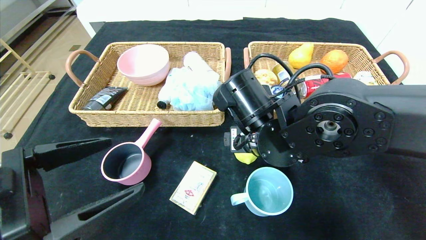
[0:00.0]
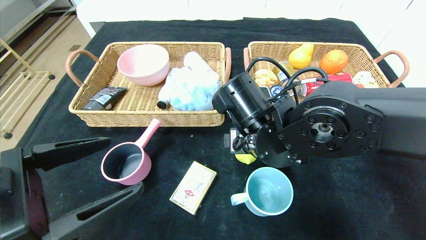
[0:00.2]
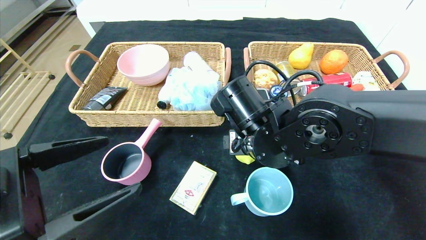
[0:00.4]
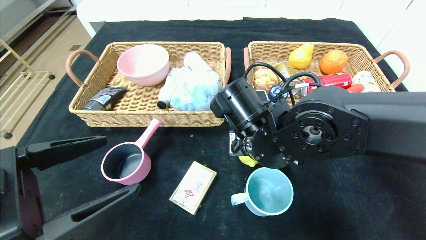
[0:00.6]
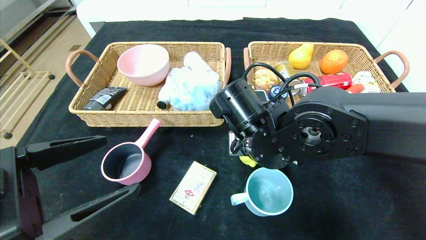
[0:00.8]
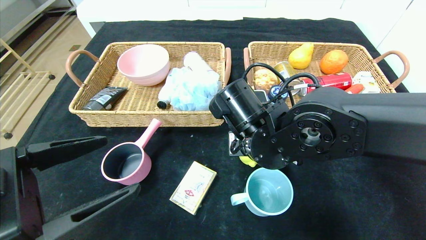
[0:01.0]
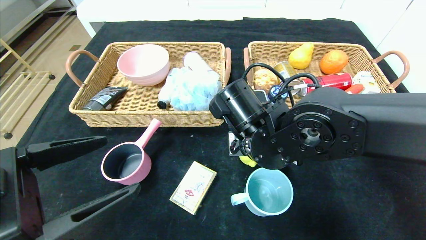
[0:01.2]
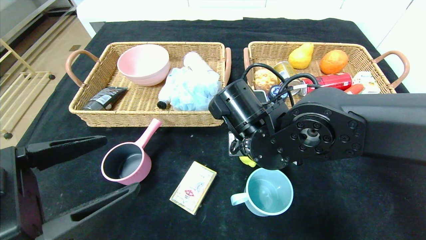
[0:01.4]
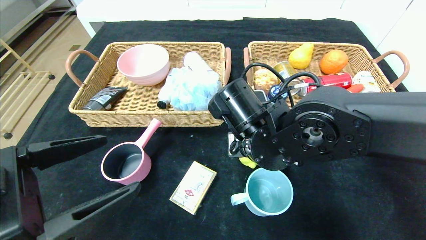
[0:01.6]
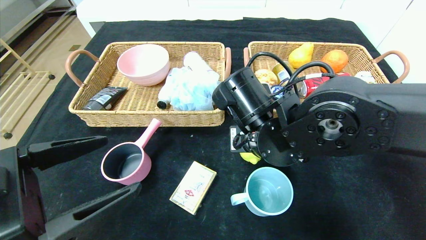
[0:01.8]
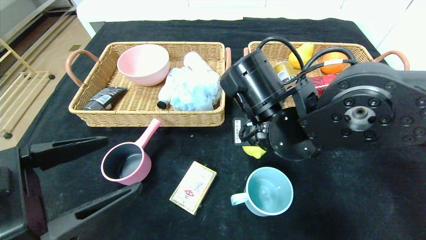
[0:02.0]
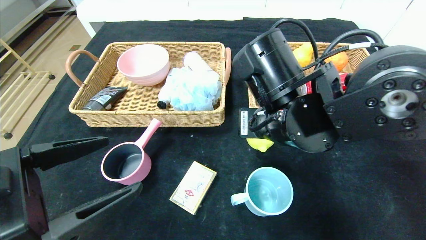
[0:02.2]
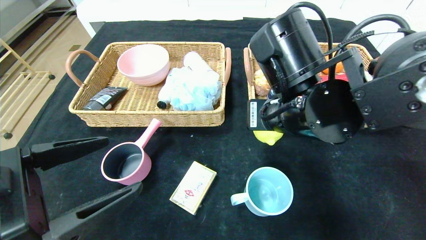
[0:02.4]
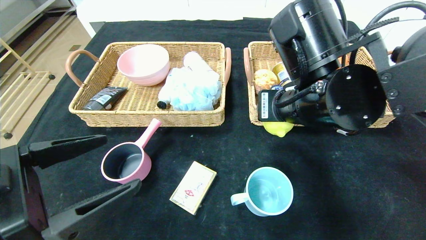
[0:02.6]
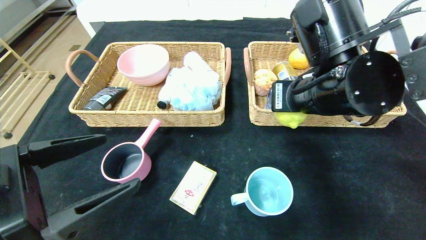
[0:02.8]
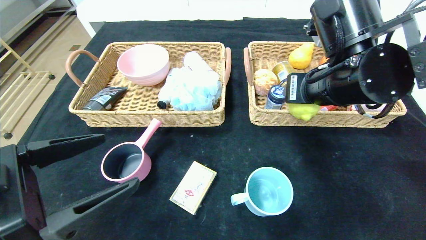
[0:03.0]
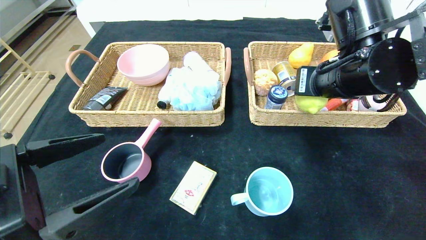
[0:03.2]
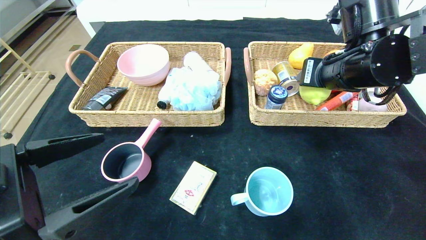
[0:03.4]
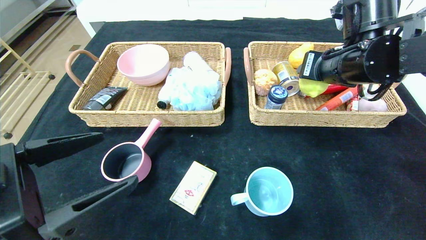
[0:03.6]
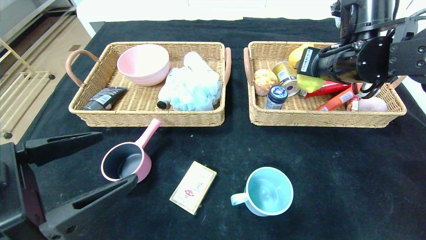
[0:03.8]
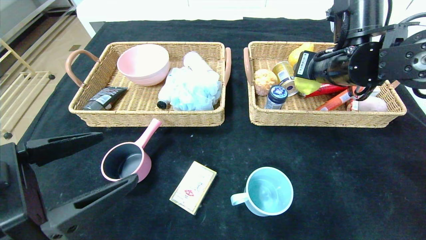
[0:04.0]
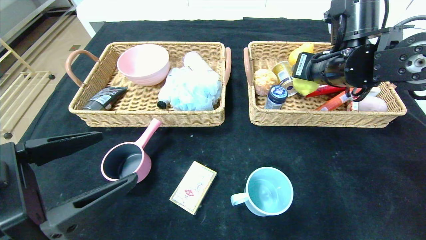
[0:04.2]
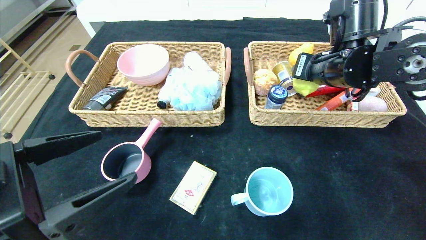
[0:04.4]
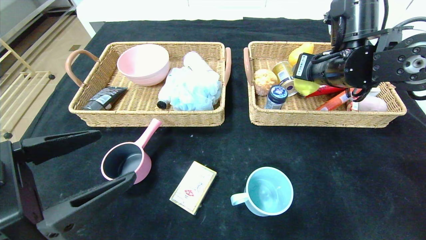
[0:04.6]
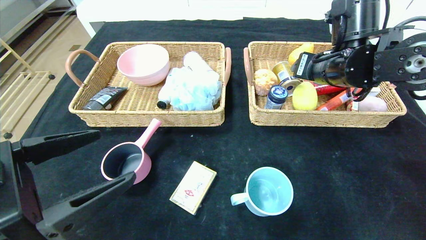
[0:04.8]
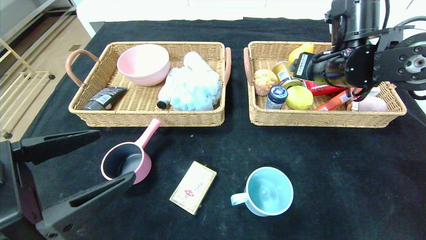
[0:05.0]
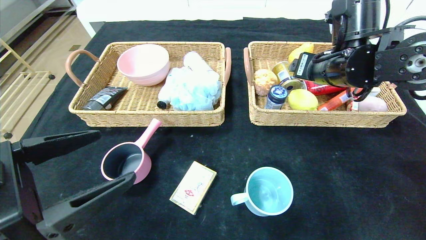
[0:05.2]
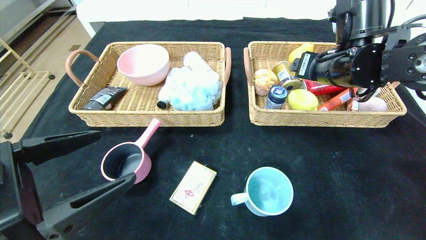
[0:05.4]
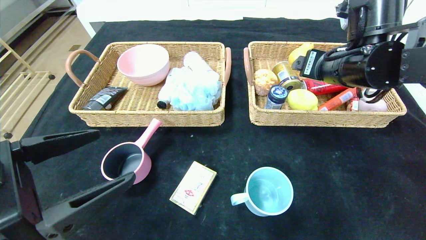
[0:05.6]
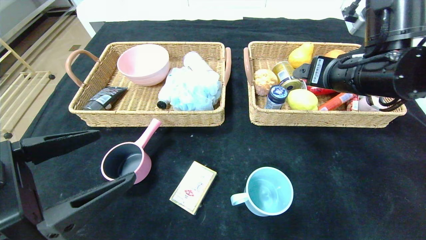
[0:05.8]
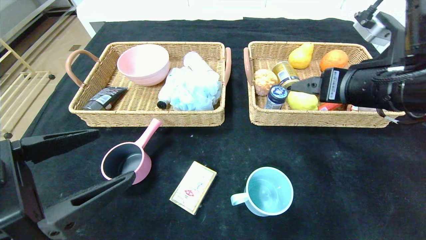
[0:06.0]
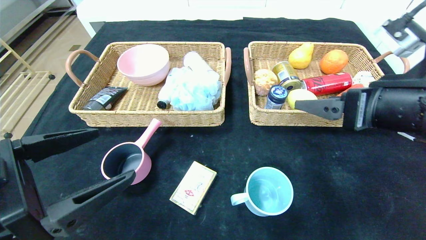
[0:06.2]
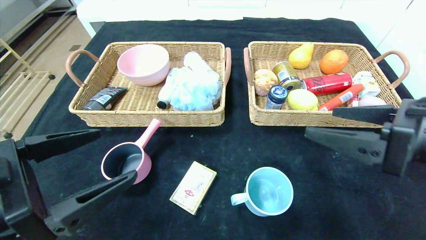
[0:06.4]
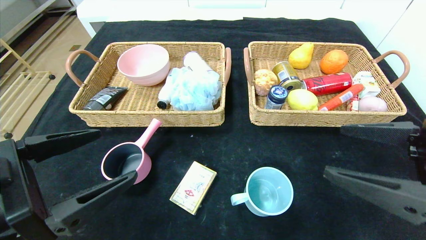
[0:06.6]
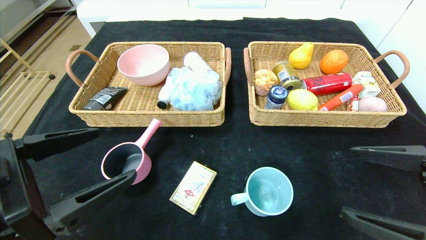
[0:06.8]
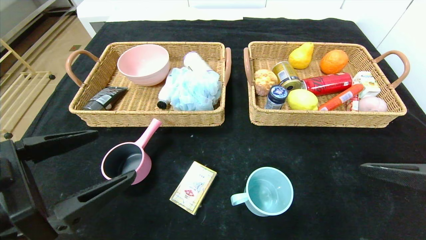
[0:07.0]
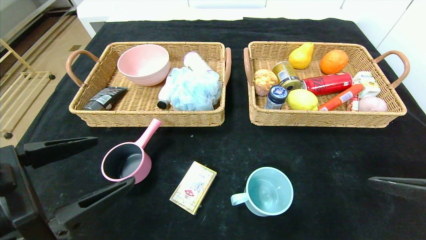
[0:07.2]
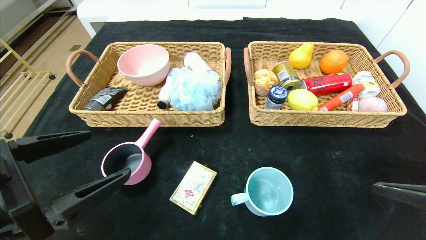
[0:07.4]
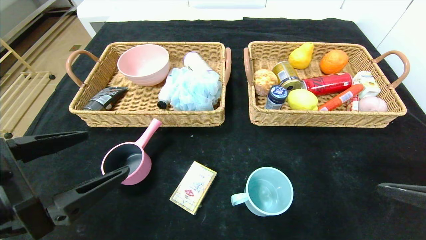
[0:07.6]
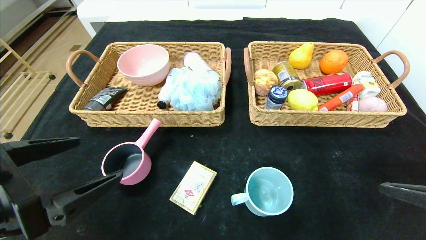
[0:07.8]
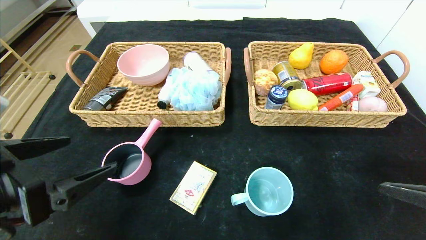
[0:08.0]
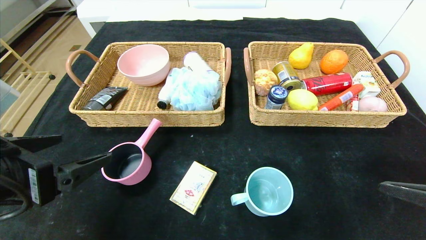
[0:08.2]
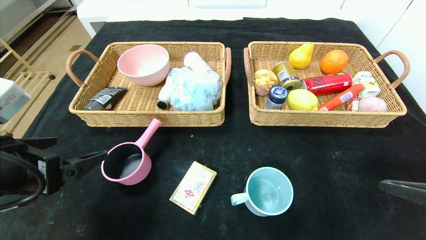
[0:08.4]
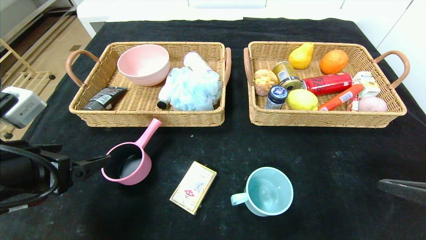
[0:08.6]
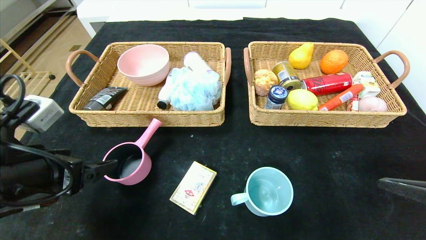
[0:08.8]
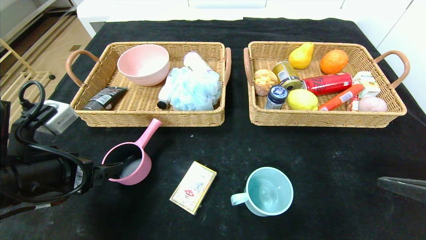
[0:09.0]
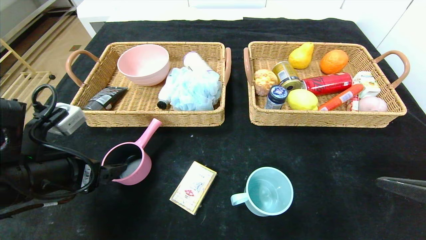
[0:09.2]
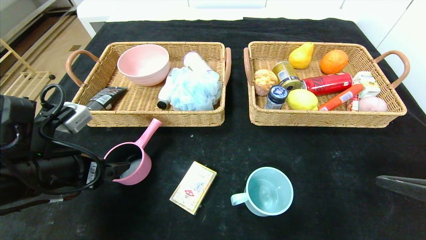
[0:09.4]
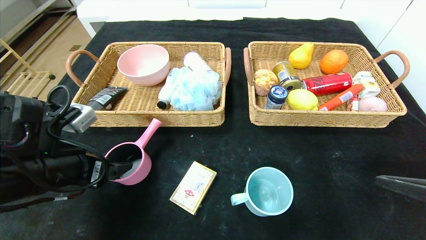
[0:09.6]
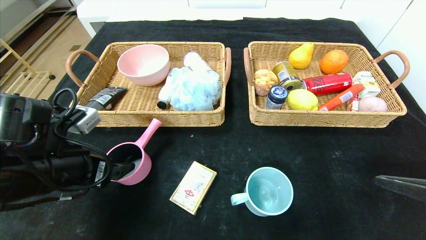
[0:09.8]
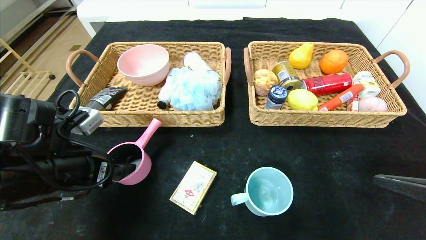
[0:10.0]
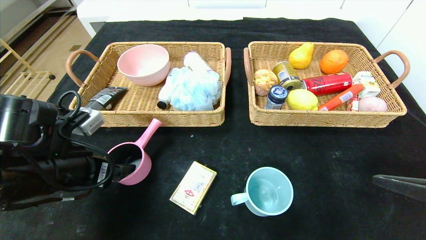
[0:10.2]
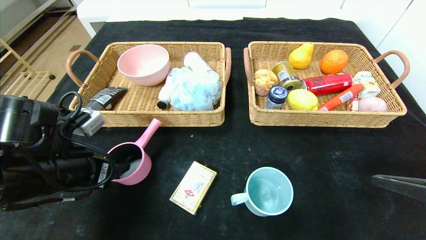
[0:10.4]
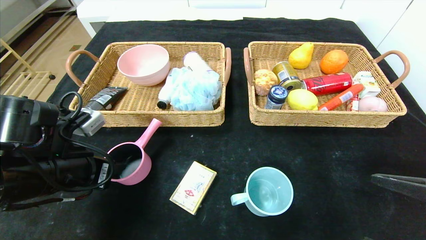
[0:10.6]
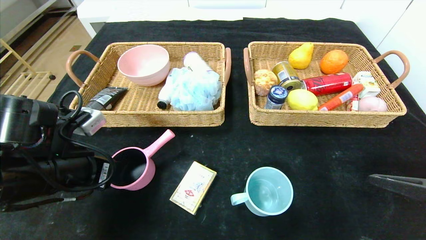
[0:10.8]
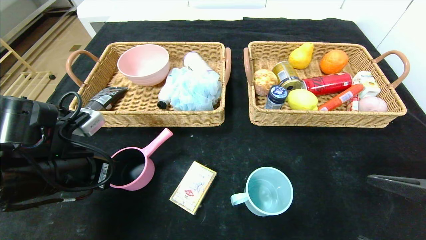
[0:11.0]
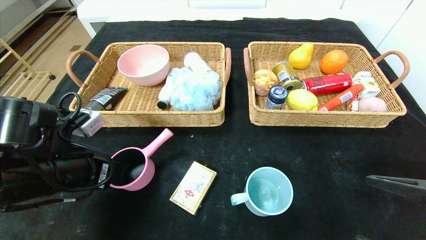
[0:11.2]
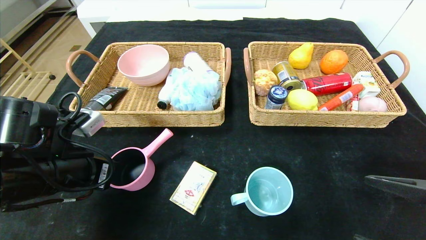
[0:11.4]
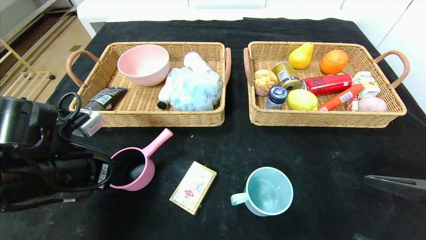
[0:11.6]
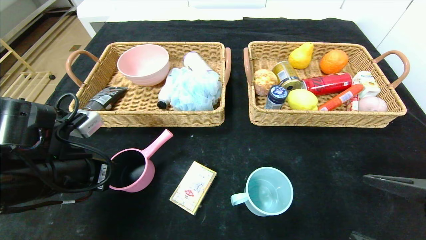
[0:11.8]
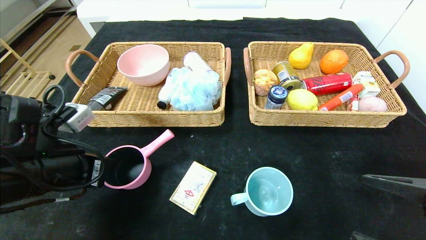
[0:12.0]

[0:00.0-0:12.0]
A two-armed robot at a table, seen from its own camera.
Step, 0:00.0 to 0:06.2: Pick up the lemon and put it in the right basket.
0:00.0 to 0:01.6: The right gripper closes.
0:01.6 to 0:03.0: The right gripper is displaced to the right and upward by roughly 15 cm.
0:03.0 to 0:04.4: The right gripper heads forward, covering approximately 5 cm.
0:04.4 to 0:06.0: The right gripper goes approximately 10 cm backward, and opens up.
0:06.0 to 0:07.6: The right gripper moves backward and downward, roughly 20 cm.
0:07.6 to 0:09.0: The left gripper moves forward, roughly 5 cm.
0:09.0 to 0:10.4: The grippers stay close to where they were, moving slightly.
0:10.4 to 0:12.0: The left gripper closes its fingers.

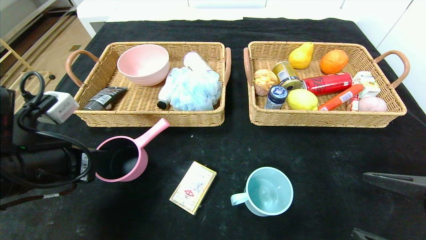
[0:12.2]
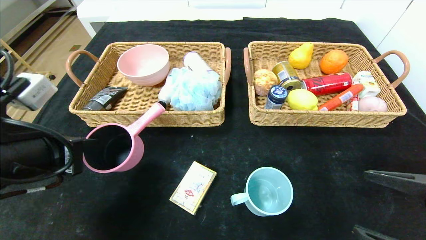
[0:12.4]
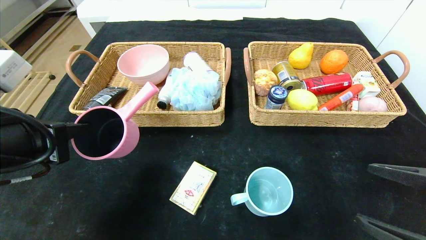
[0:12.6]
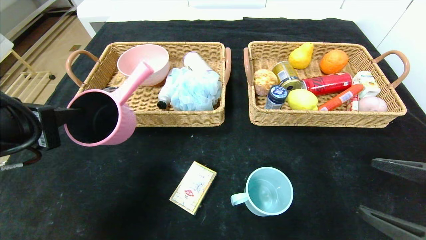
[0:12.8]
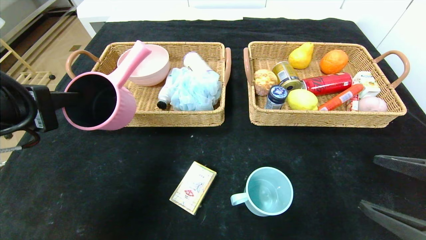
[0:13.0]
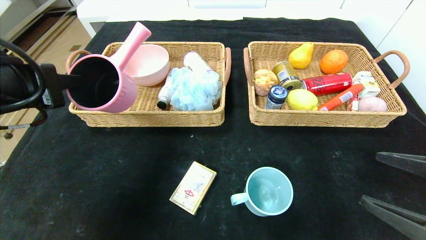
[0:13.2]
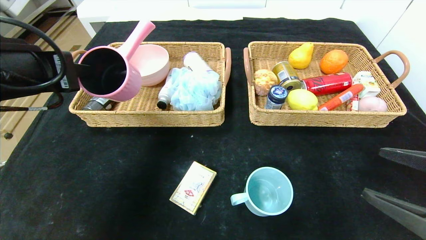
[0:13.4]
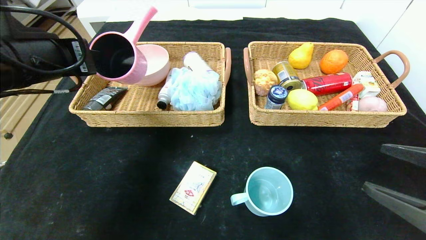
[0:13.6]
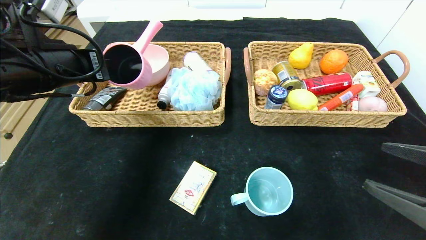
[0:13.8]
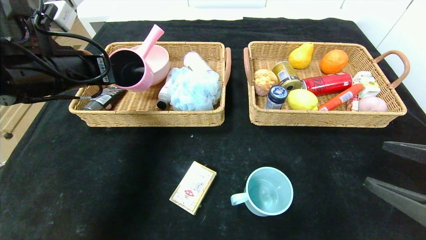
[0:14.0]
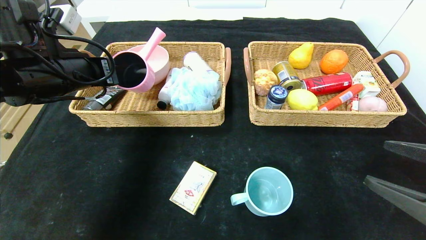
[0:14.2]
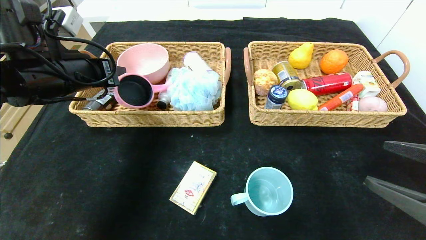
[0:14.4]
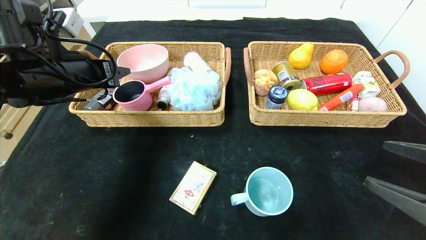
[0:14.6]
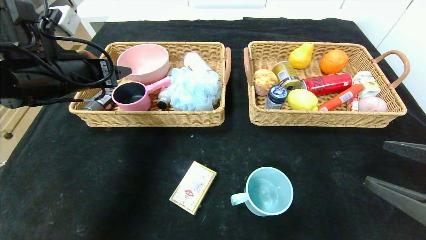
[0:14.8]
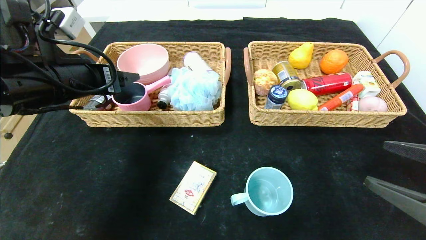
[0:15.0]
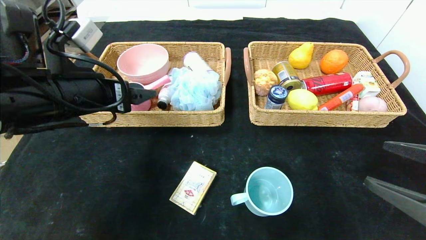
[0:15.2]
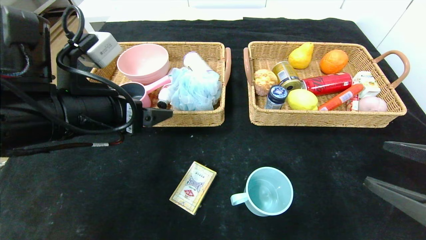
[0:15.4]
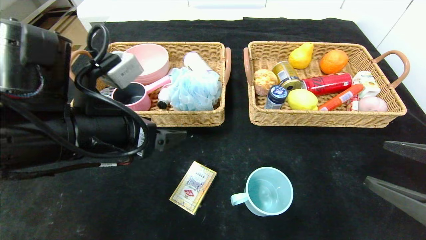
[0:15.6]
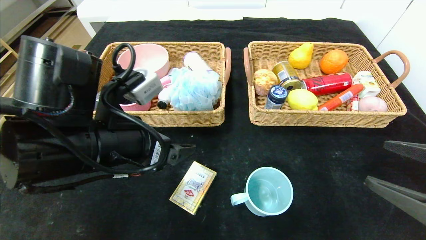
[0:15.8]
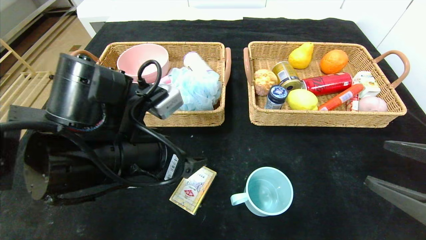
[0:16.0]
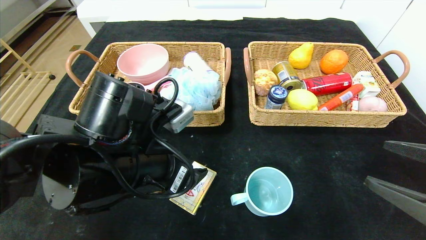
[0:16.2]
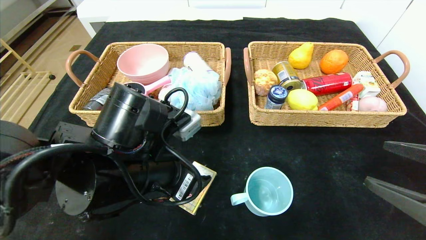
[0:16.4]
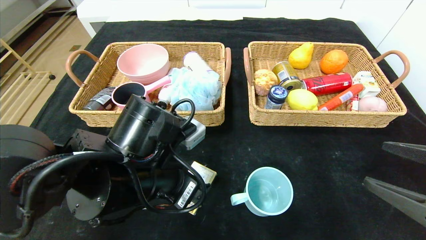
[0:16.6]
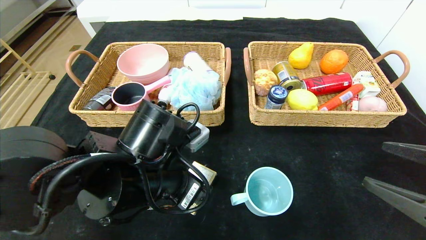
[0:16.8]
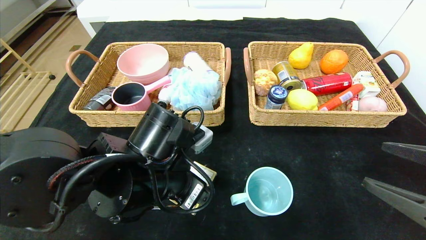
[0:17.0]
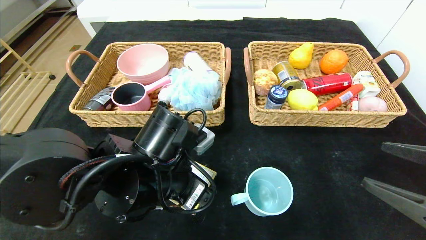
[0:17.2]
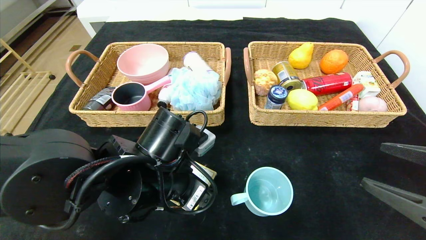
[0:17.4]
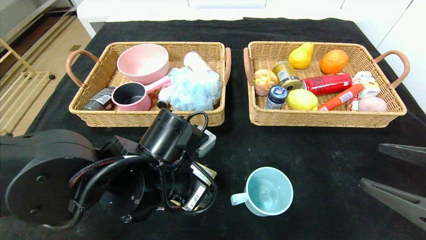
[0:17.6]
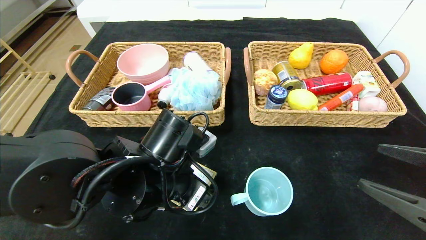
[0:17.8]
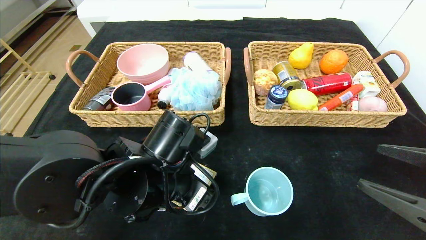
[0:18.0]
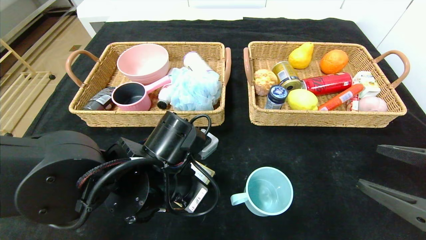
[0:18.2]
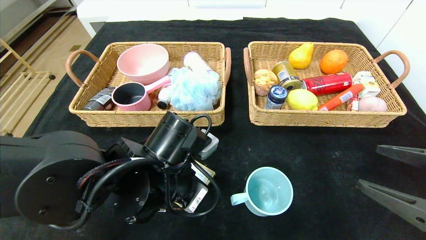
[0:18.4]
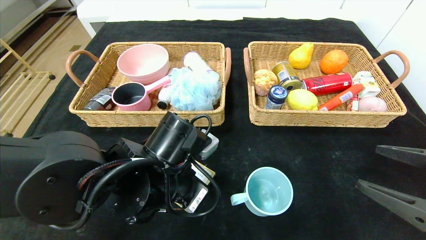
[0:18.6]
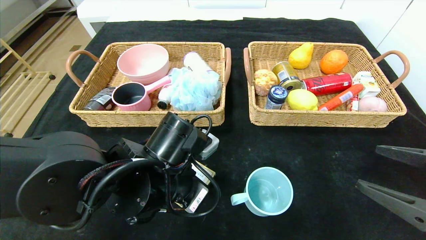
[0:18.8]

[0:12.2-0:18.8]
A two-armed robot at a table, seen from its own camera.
Step, 0:12.2 to 0:15.4: Pick up the pink pot and put it in the left basket.
0:12.2 to 0:13.8: The left gripper moves upward and forward, some 15 cm.
0:13.8 to 0:15.4: The left gripper heads to the right and backward, covering approximately 10 cm, and opens up.
0:15.4 to 0:17.2: The left gripper moves downward and to the right, approximately 15 cm.
0:17.2 to 0:18.8: The left gripper closes up.
